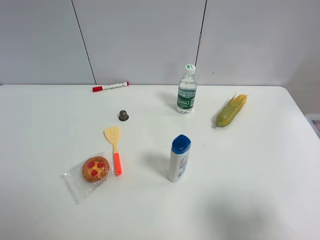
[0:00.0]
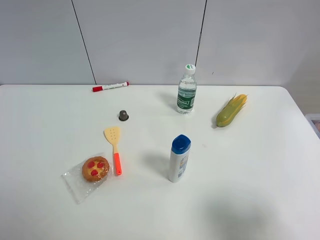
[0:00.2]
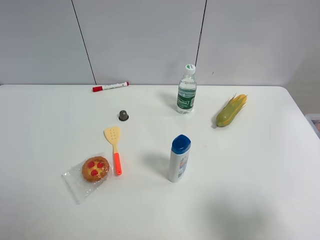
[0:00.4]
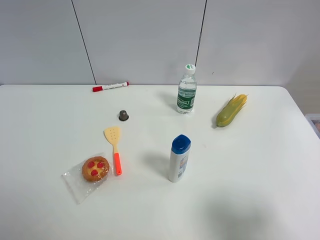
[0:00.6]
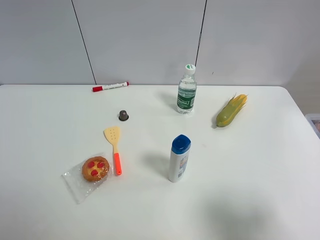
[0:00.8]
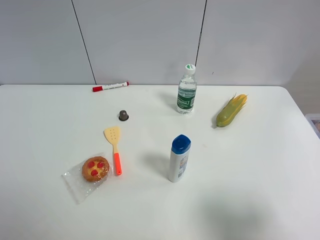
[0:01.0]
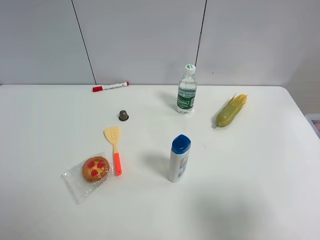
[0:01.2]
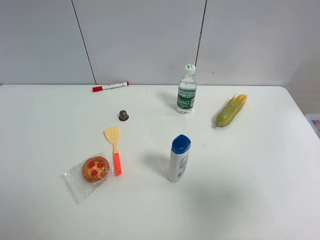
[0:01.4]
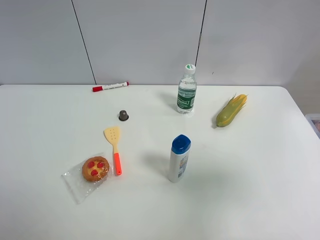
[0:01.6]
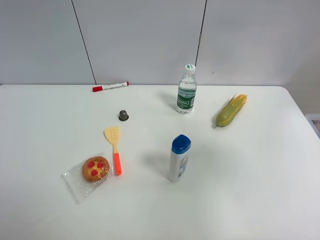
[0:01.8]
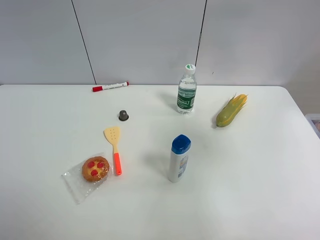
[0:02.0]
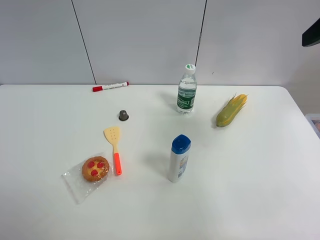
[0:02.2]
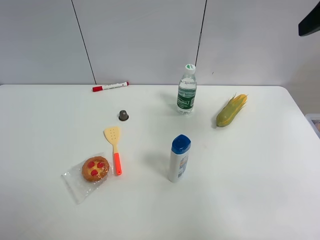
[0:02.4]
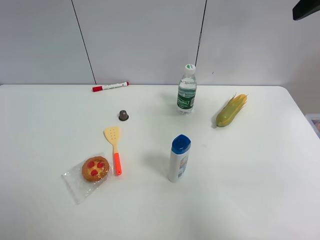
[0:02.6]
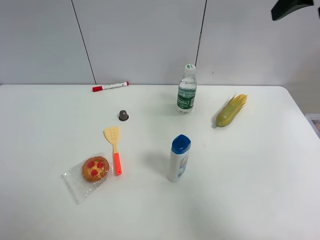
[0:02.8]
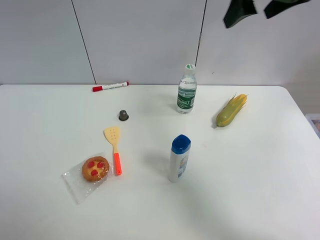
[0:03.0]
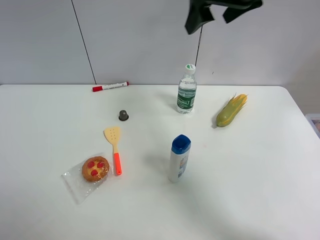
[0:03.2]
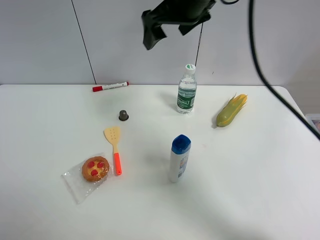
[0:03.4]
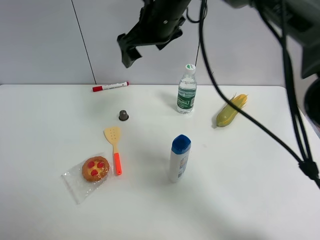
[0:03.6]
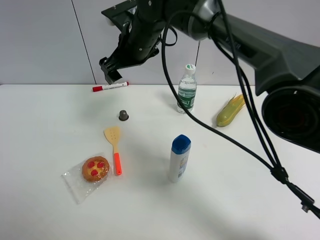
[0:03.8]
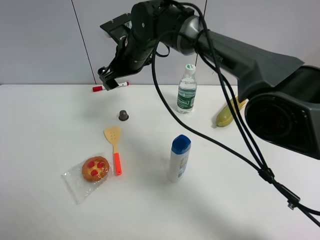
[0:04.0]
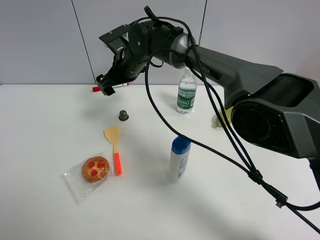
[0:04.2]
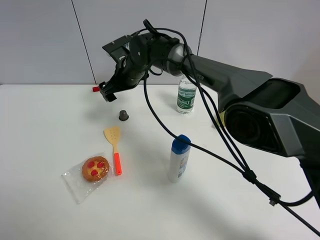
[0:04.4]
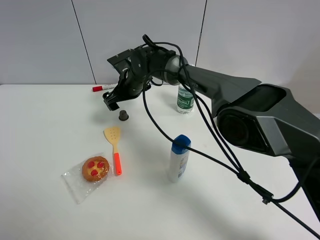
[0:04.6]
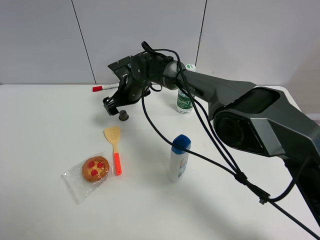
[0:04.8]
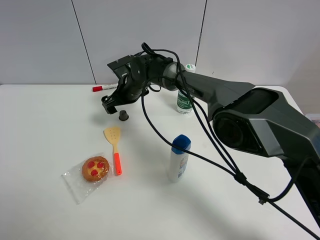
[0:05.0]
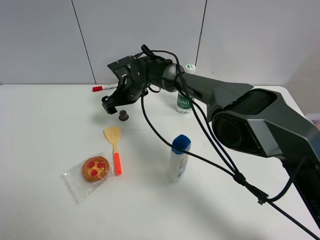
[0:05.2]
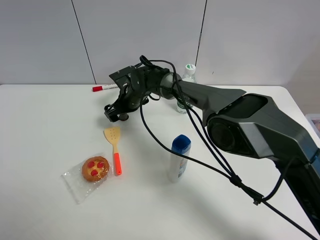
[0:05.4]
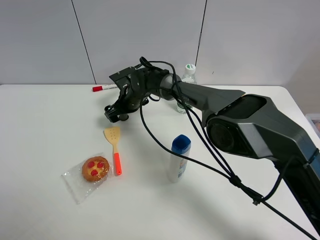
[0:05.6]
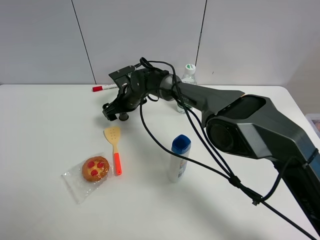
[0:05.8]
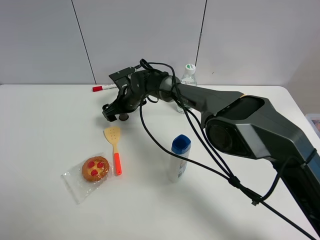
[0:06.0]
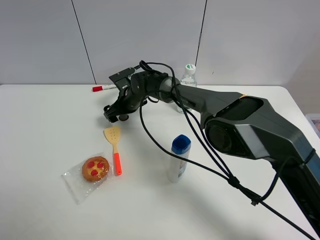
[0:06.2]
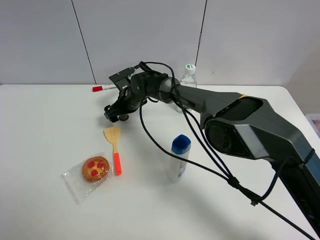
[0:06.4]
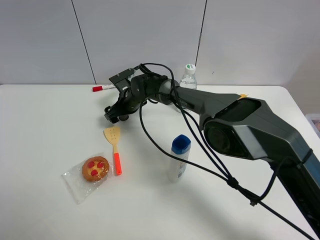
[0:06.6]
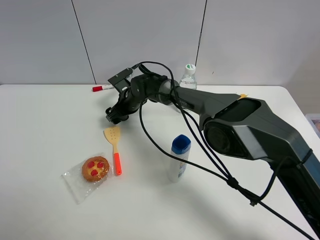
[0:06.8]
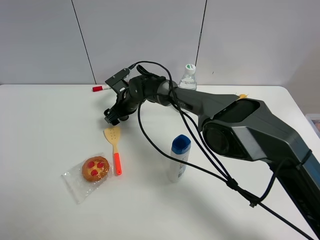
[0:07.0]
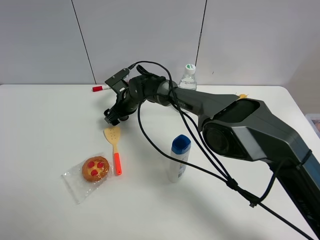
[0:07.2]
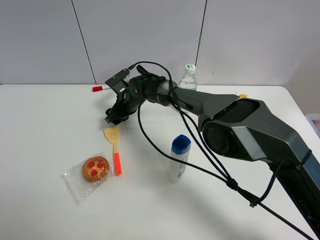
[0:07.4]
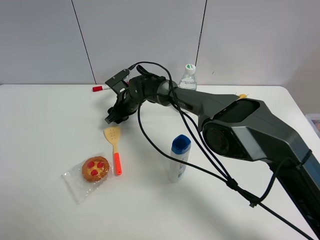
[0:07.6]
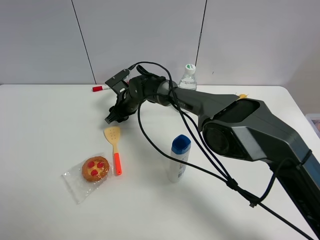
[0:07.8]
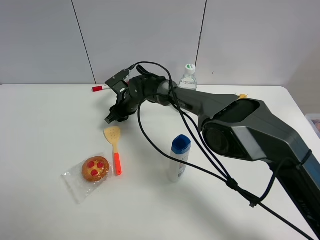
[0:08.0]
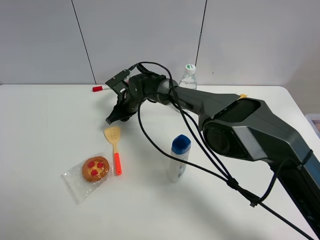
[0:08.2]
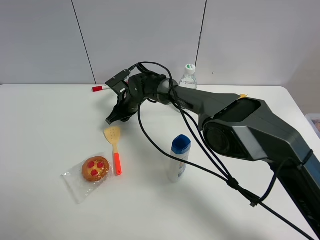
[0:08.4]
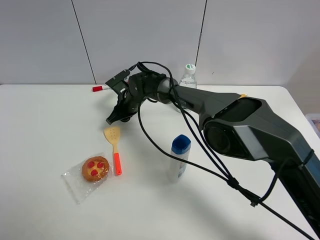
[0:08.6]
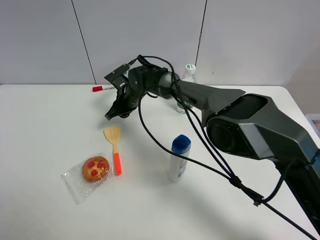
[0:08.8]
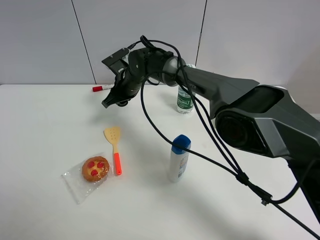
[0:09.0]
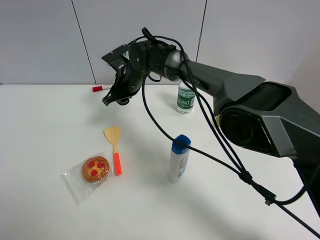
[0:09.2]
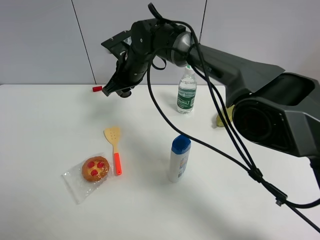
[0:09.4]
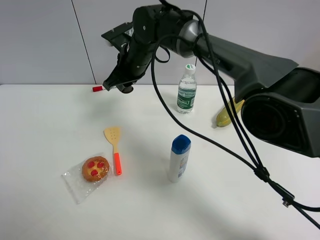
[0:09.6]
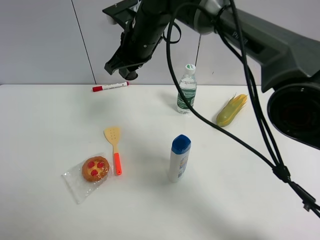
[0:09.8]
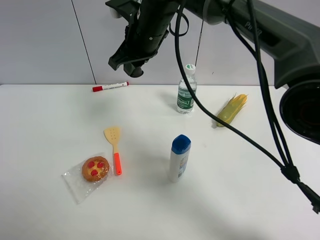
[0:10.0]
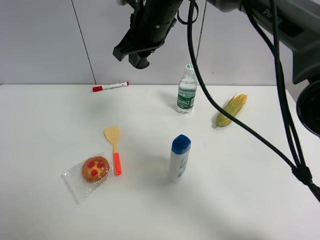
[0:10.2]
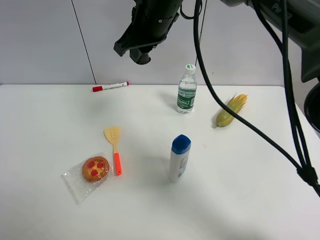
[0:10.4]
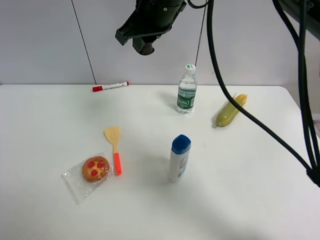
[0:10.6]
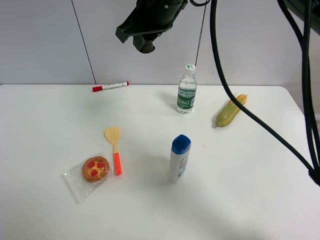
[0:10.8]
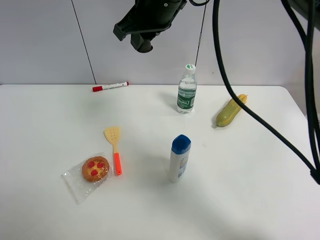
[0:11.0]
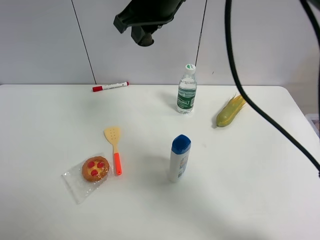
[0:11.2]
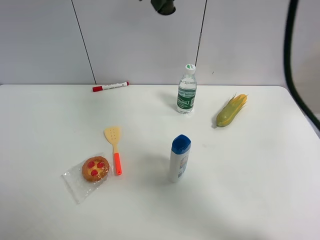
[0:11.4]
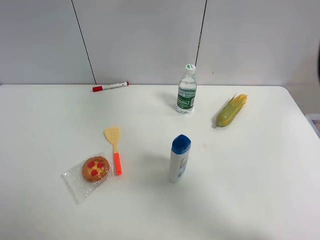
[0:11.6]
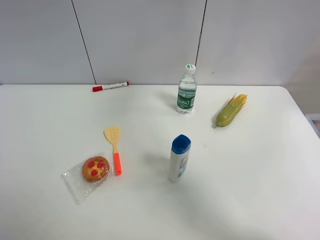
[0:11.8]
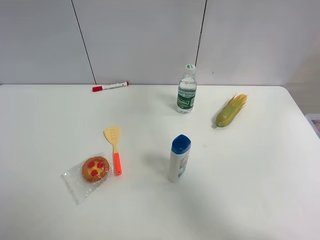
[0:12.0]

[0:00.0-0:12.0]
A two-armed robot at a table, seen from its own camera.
Task of the whole recording: the gripper move the object.
Step, 0:00.0 to 0:08.2: Grasp the coffee capsule with the right gripper.
0:00.0 to 0:01.6: The right gripper heads upward and forward, covering roughly 15 cm.
0:01.6 to 0:03.0: The right gripper goes about 25 cm forward.
0:03.0 to 0:04.4: The right gripper is displaced to the left and downward by some 35 cm.
0:04.4 to 0:06.0: The right gripper heads downward, covering roughly 10 cm.
0:06.0 to 0:07.6: The right gripper closes its fingers.
0:07.6 to 0:09.0: The right gripper goes some 10 cm upward, and closes up.
0:09.0 to 0:10.4: The right gripper shifts about 20 cm upward.
0:10.4 to 0:12.0: The right gripper is displaced to the right and upward by roughly 25 cm.

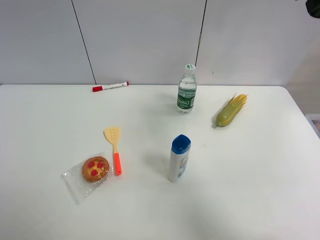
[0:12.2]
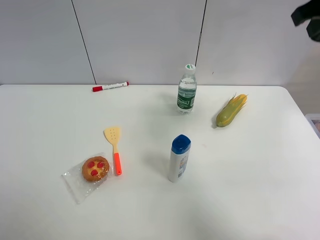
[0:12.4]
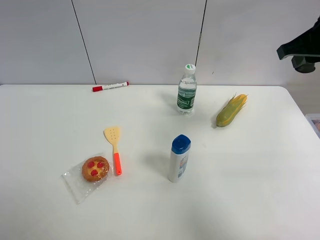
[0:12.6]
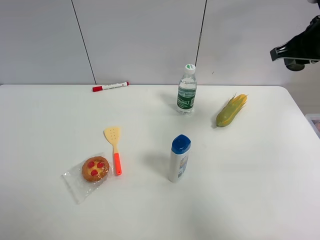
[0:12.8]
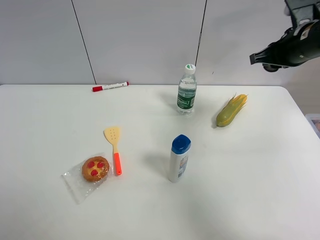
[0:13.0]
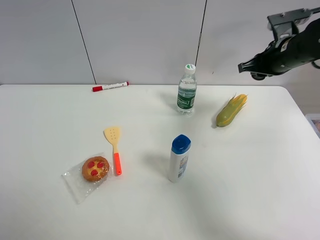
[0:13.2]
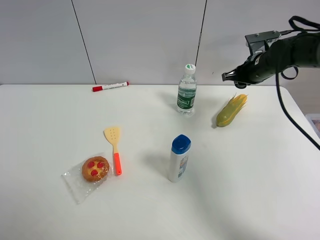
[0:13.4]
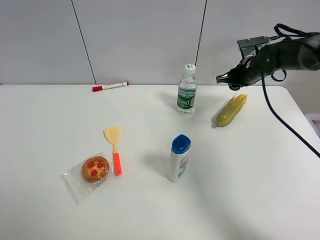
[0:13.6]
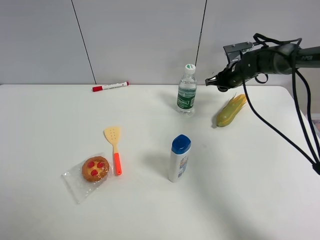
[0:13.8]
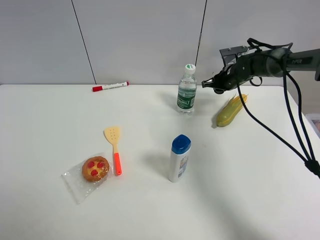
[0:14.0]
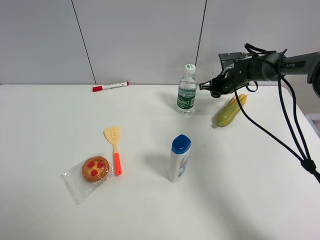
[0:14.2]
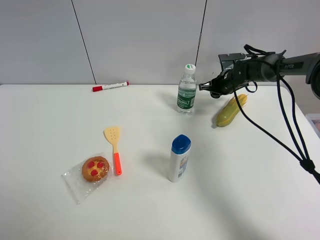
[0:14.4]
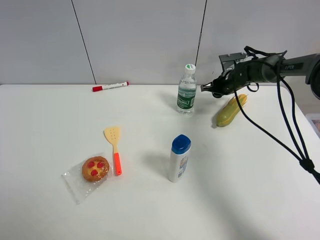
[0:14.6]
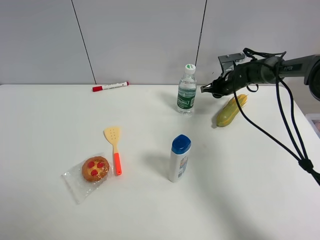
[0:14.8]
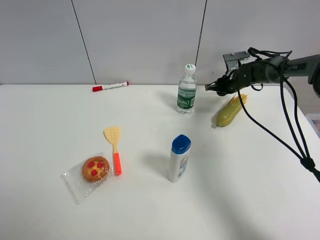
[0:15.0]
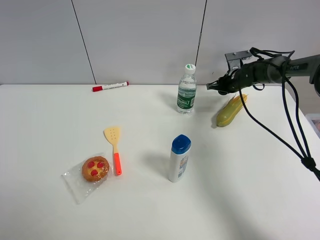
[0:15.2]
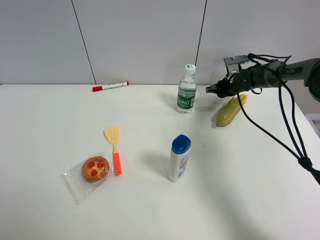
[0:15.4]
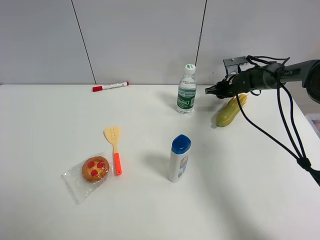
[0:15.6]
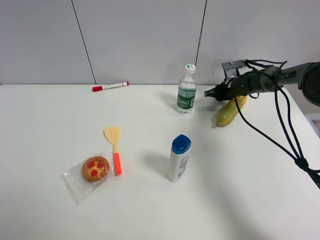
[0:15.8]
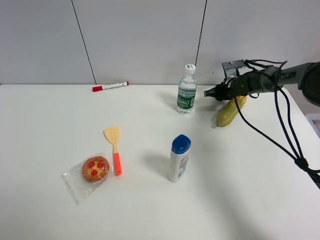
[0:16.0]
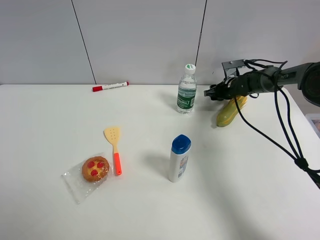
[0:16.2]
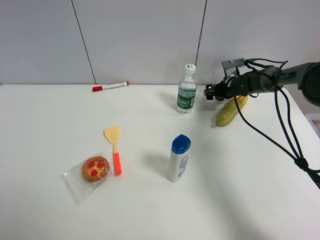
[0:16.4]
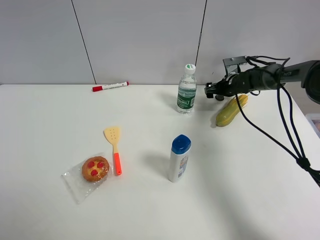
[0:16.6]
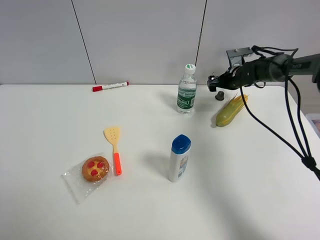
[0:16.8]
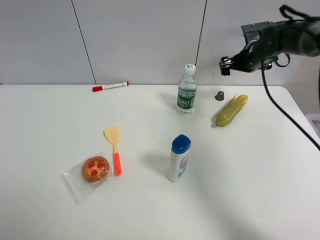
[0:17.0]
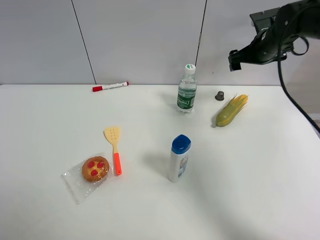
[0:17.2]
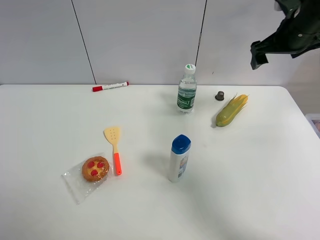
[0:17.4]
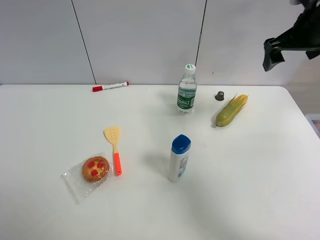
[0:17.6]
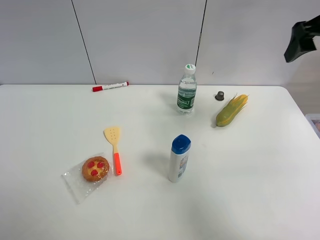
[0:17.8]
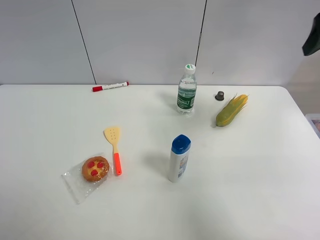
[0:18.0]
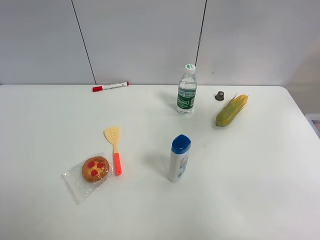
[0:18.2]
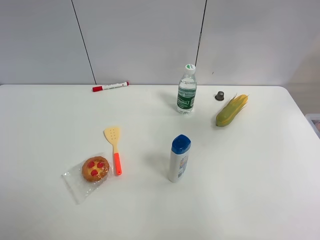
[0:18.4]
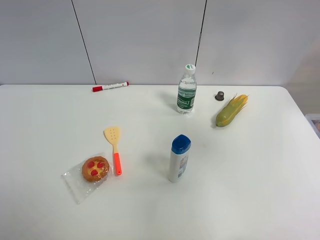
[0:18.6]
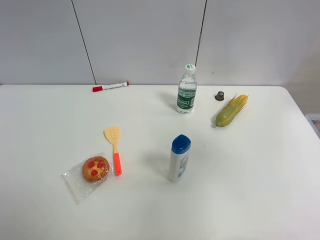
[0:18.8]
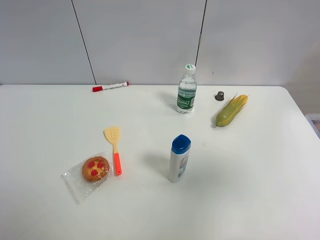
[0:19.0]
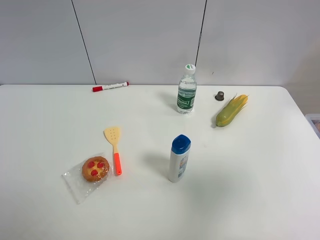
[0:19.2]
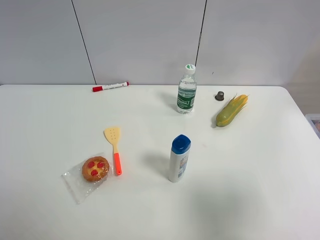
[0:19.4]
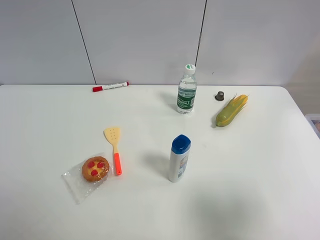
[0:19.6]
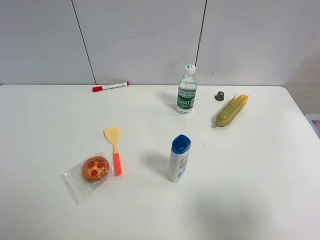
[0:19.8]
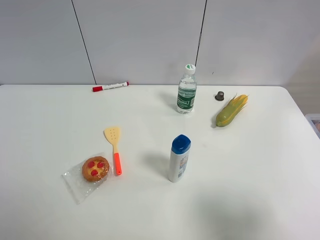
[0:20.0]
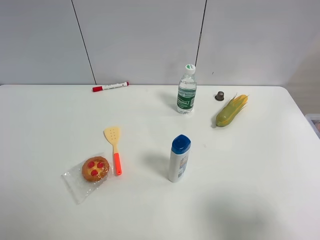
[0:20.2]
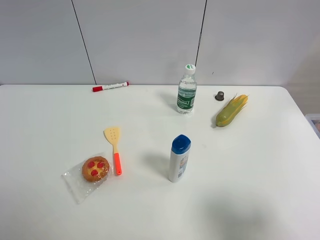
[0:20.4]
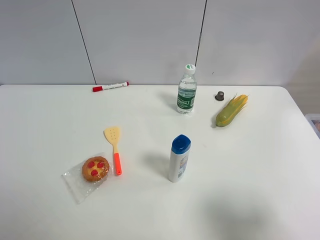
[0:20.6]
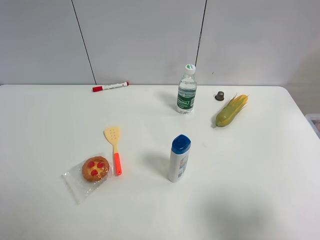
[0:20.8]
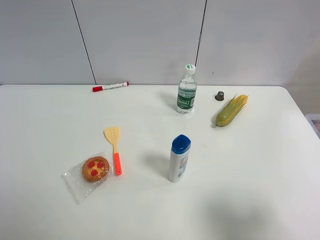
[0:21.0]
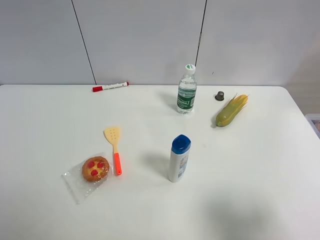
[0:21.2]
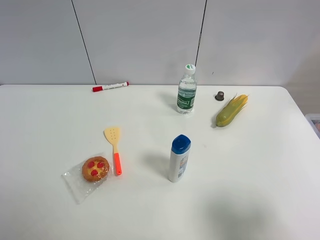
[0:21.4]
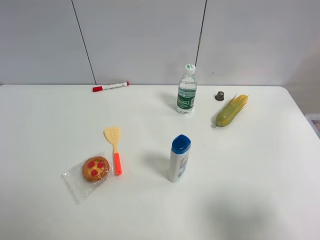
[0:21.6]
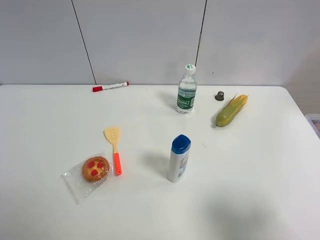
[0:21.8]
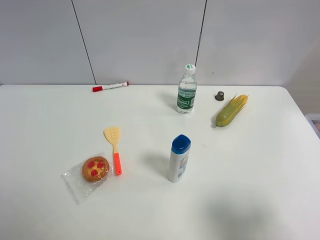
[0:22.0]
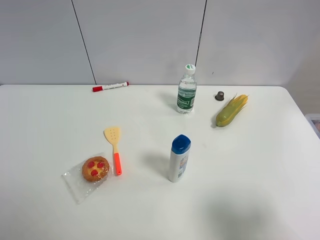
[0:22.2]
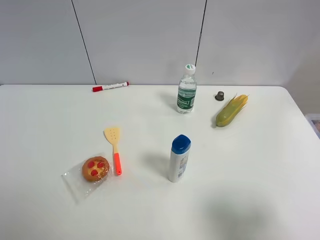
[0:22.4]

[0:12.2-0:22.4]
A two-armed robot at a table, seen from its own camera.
Task of the whole recording: the gripper move the object.
Step, 0:12.2 to 0:16.4: Place the coffee capsule on the table with the right gripper.
0:12.2 to 0:13.6: The right gripper shifts about 30 cm downward and forward.
0:13.6 to 0:15.2: The right gripper goes about 5 cm downward.
0:15.2 to 0:16.6: The right gripper opens up.
0:16.6 to 0:18.0: The right gripper travels upward and backward by roughly 40 cm.
0:18.0 to 0:19.4: The right gripper heads backward, covering roughly 25 cm.
0:19.4 to 0:21.0: The right gripper heads downward, covering about 5 cm.
0:21.0 to 0:22.4: Neither gripper changes place.
